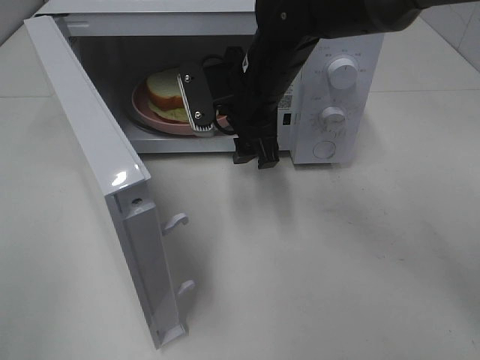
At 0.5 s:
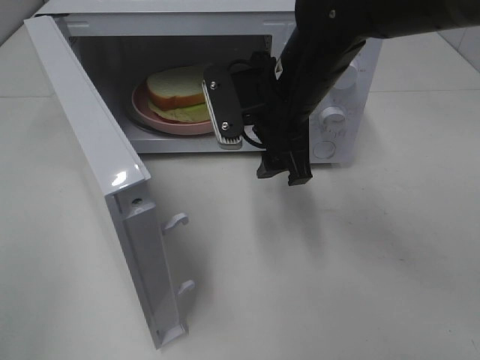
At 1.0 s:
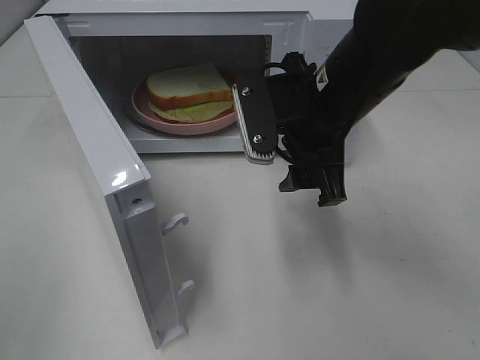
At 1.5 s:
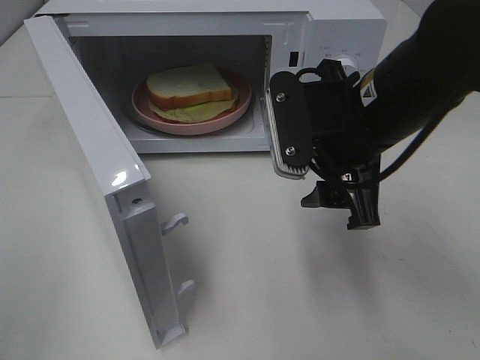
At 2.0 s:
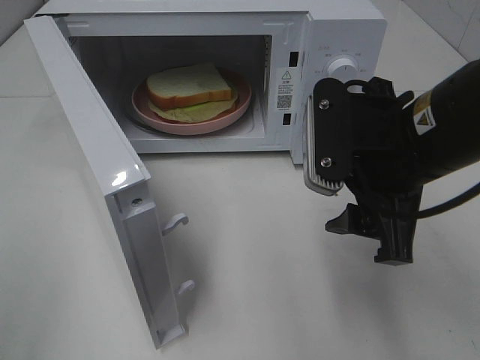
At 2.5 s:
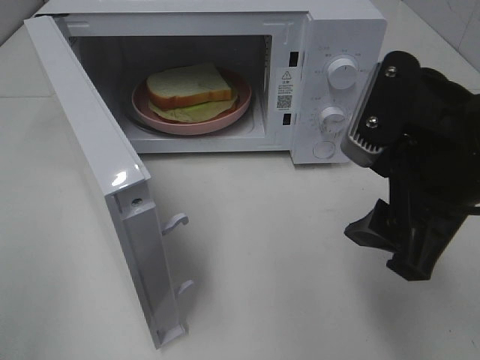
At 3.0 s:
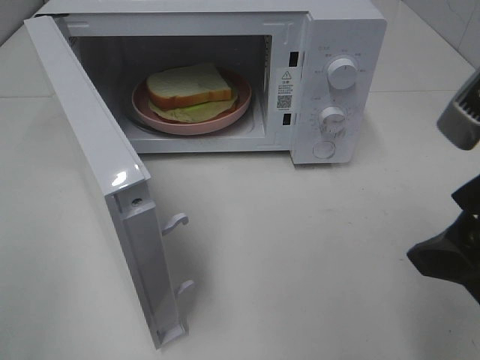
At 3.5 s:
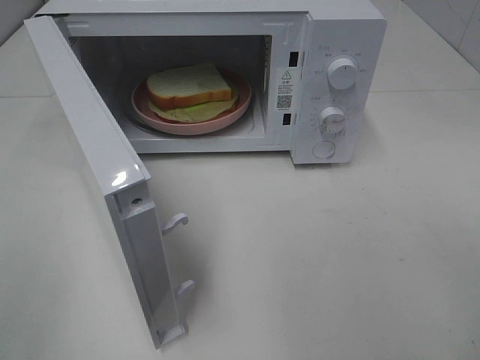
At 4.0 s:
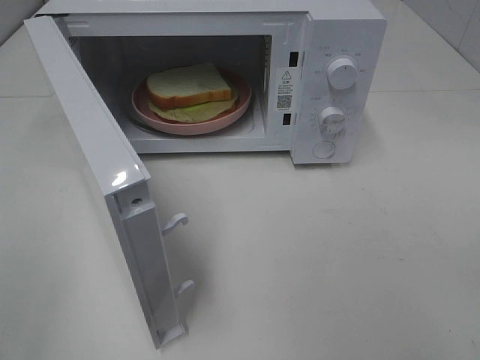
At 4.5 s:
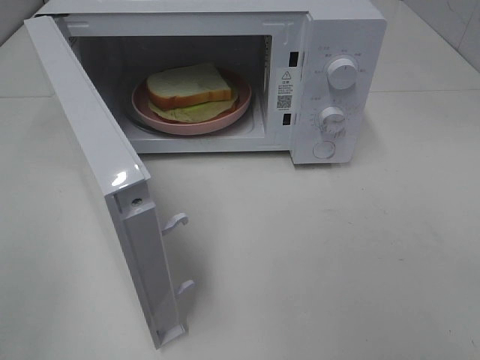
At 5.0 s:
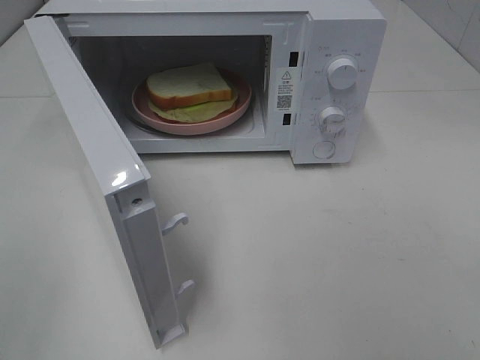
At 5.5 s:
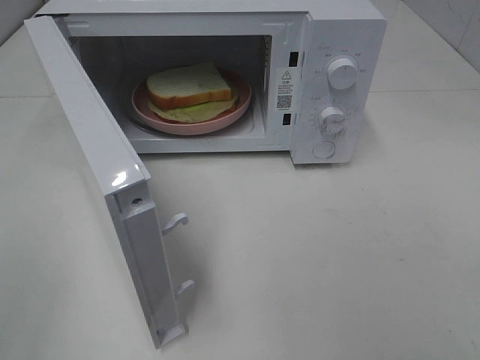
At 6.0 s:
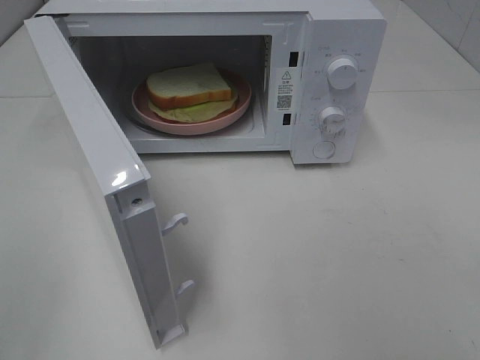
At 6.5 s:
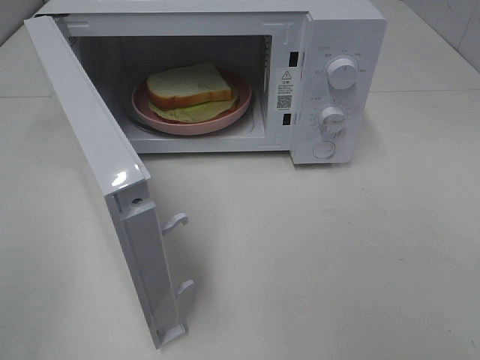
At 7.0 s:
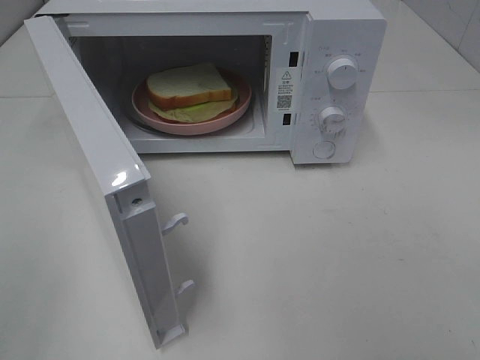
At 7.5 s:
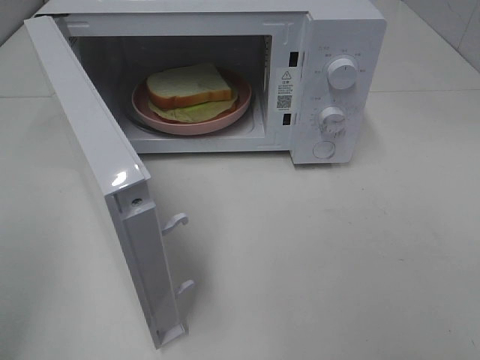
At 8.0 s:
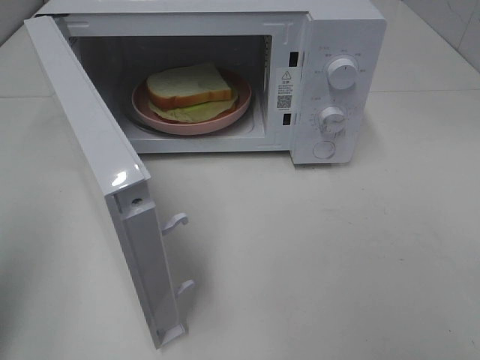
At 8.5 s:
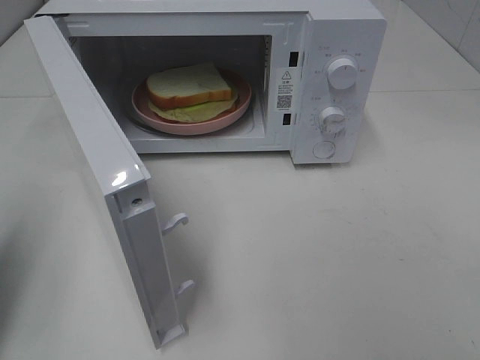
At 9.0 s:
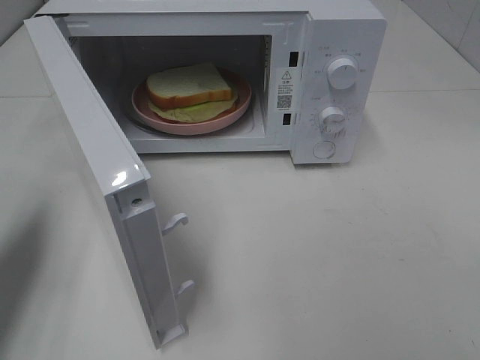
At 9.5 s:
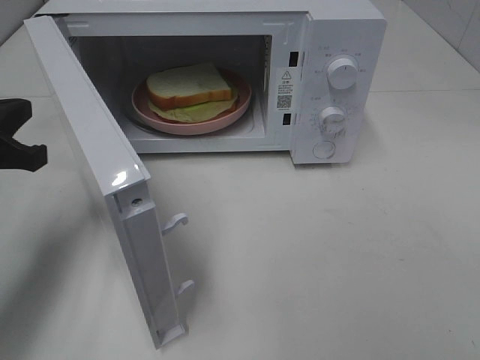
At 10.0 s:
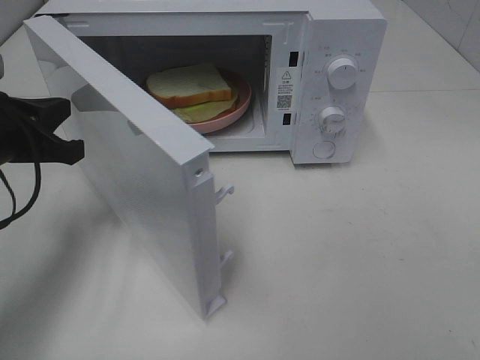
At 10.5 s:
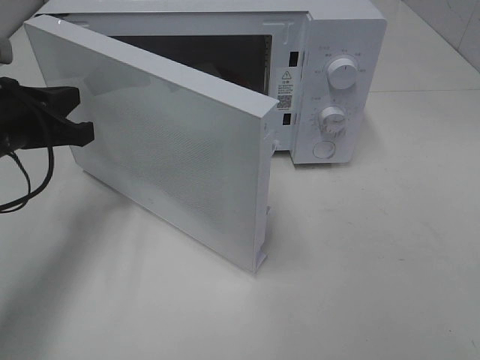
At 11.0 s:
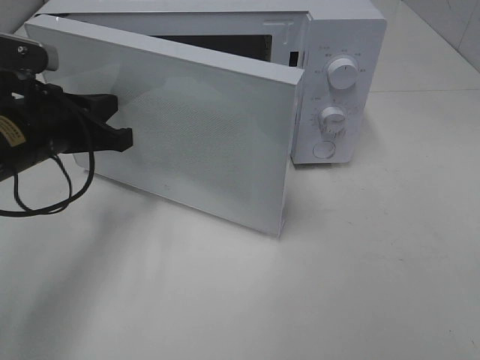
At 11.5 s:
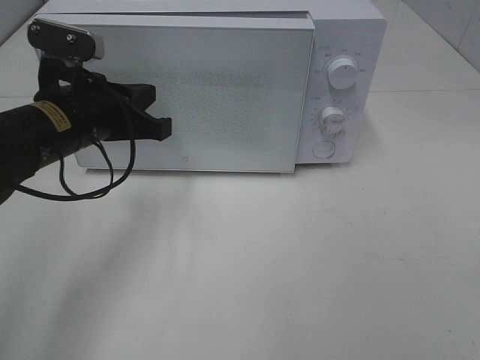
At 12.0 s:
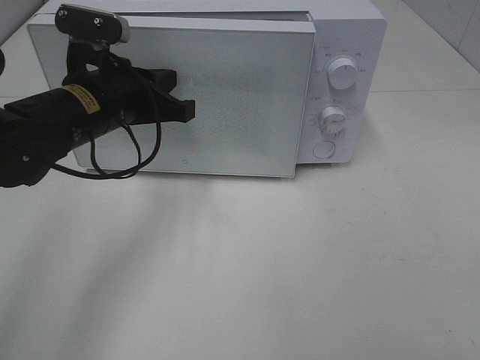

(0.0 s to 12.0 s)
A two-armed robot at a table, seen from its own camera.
Task of the whole recording: Heat Sandwich.
0.0 s - 2.0 s: The right gripper shifts about 20 cm backward and to the right.
2.0 s - 4.0 s: The right gripper shifts approximately 20 cm backward and to the right.
8.0 s - 10.0 s: The left gripper shifts approximately 20 cm forward, downward and to the right.
10.0 s - 12.0 s: The left gripper moves to the right and forward, roughly 10 cm.

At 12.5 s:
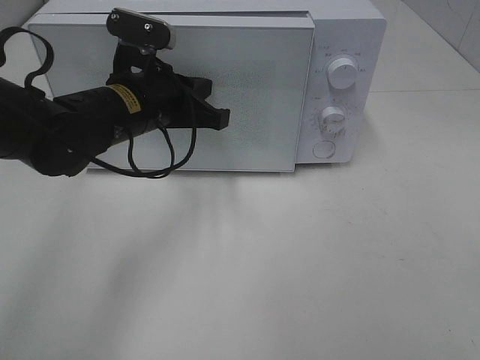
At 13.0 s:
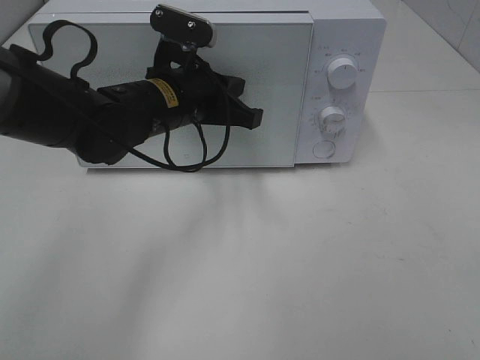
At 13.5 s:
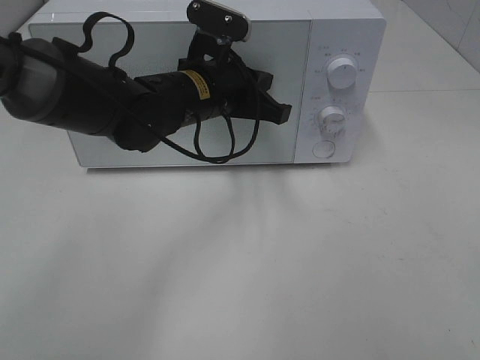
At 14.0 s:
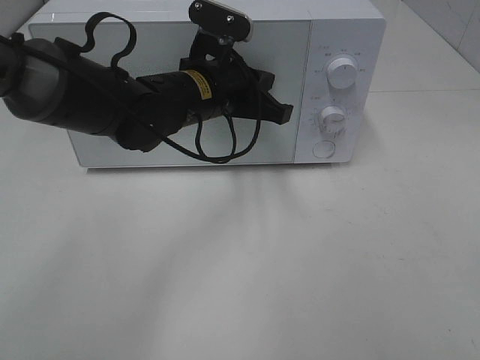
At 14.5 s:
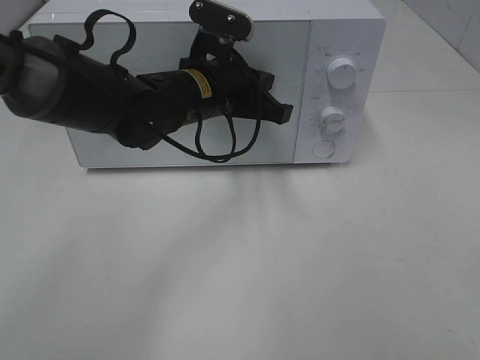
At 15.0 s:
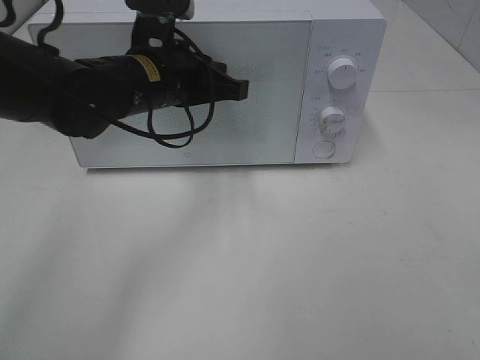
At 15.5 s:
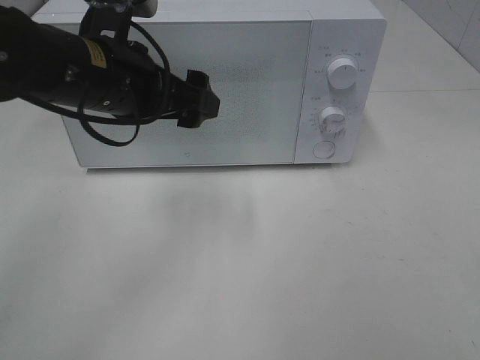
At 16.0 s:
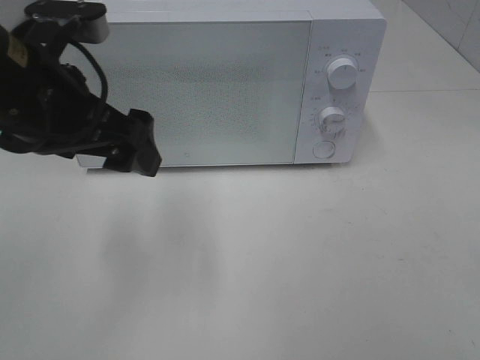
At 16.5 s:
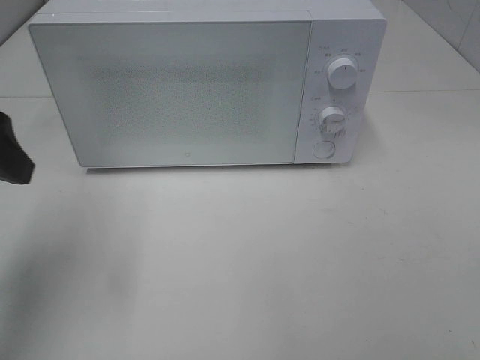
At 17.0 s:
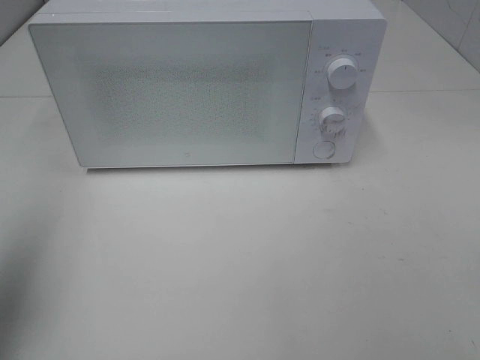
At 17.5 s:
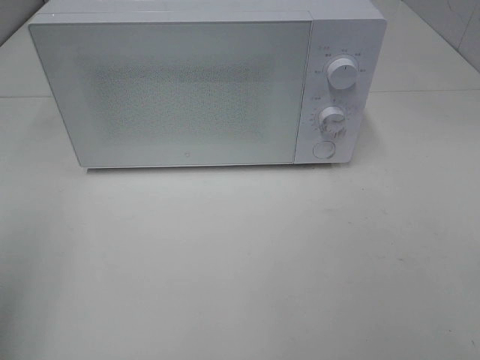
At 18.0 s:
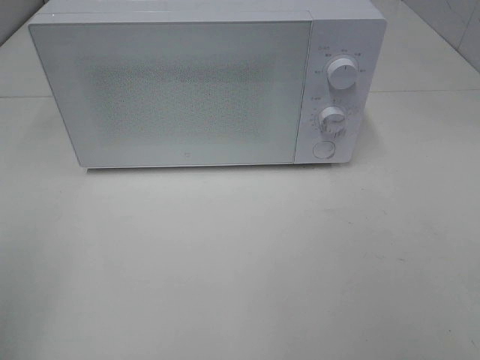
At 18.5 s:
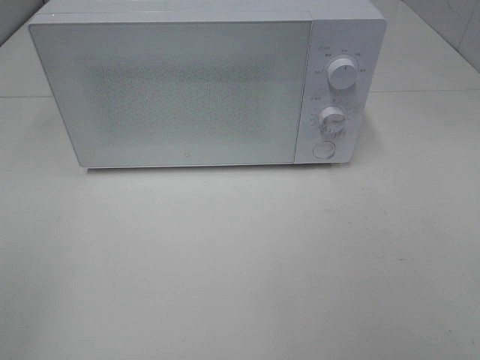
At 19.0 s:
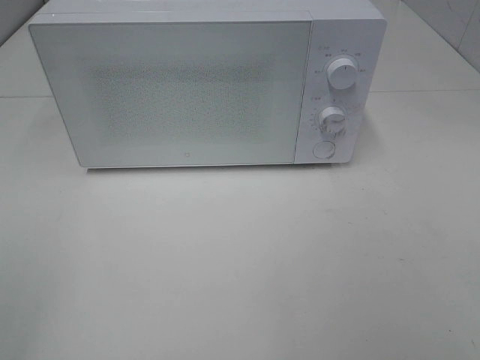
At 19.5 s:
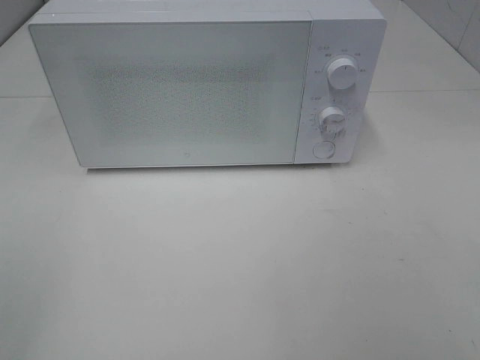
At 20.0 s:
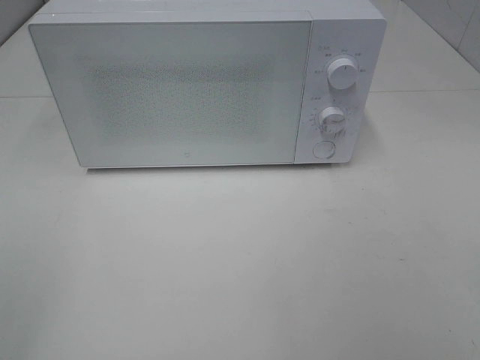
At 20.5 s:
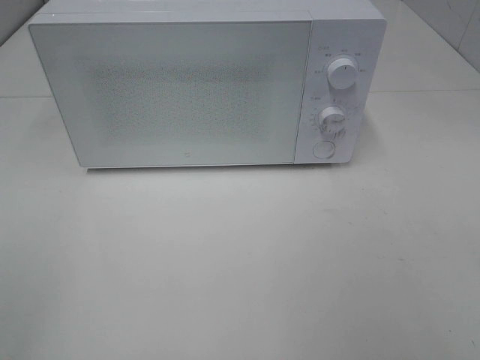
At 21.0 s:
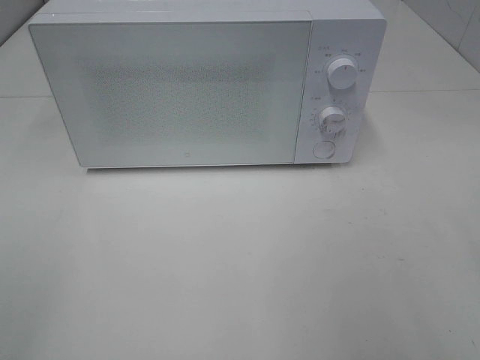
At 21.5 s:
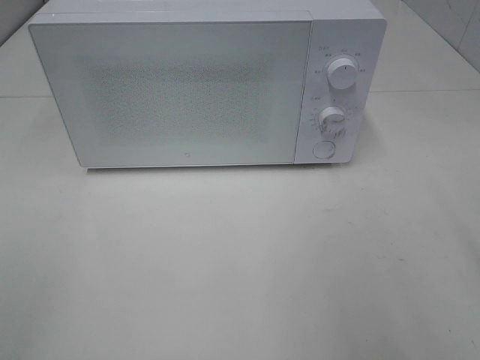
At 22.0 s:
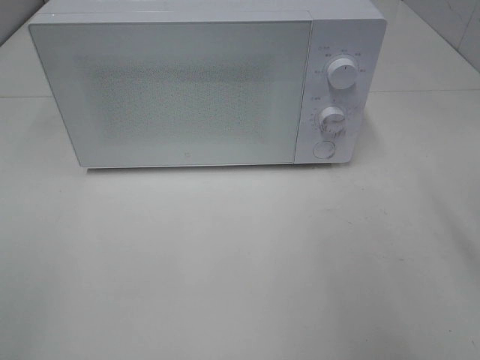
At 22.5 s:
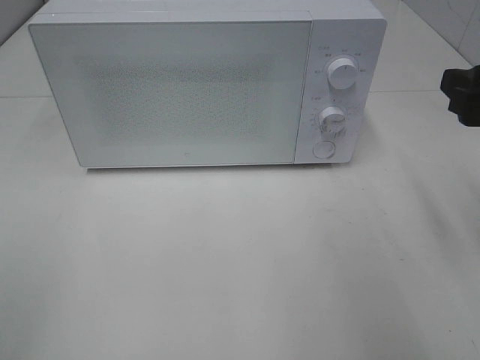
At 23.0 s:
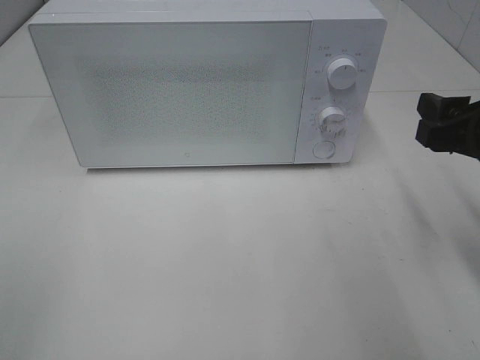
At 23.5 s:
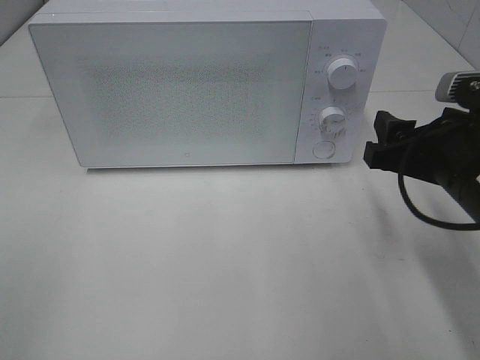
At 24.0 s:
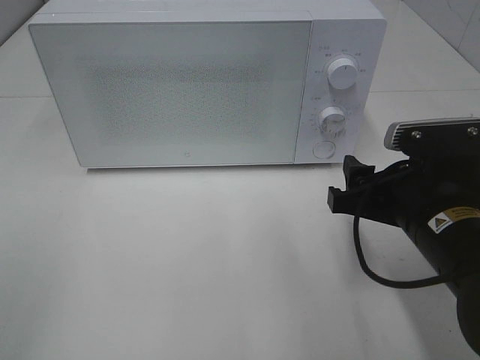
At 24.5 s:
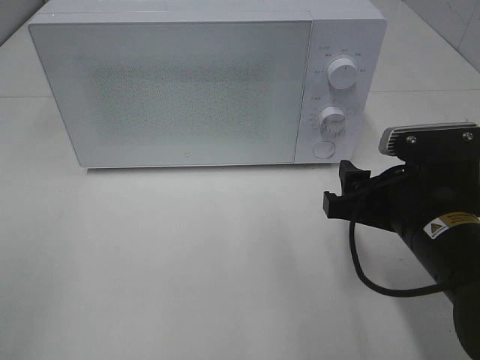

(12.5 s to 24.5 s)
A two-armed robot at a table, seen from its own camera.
Task of the whole recording: Heat Sandwich.
Step, 12.5 s - 15.0 s: Left hand: close the microwave door.
12.5 s - 14.5 s: The left gripper heads to the right, covering approximately 5 cm.
14.5 s - 16.5 s: The left gripper travels to the left, backward and upward by about 30 cm, and opens up.
16.5 s - 18.5 s: The left gripper shifts about 20 cm backward.
20.5 s - 22.5 s: The right gripper heads forward, covering roughly 20 cm.
22.5 s - 24.5 s: The right gripper travels downward and to the left by some 15 cm.

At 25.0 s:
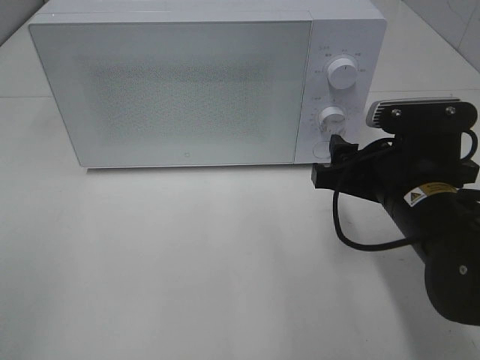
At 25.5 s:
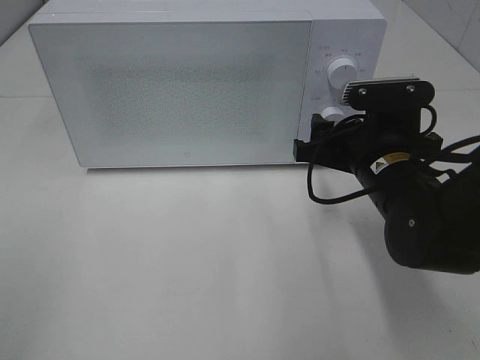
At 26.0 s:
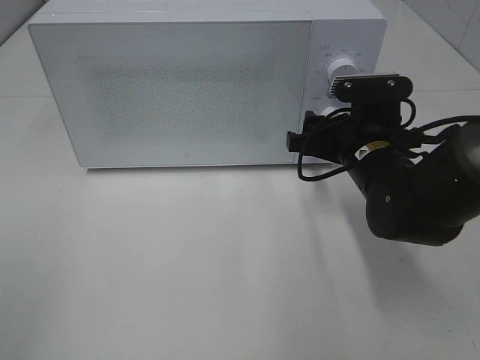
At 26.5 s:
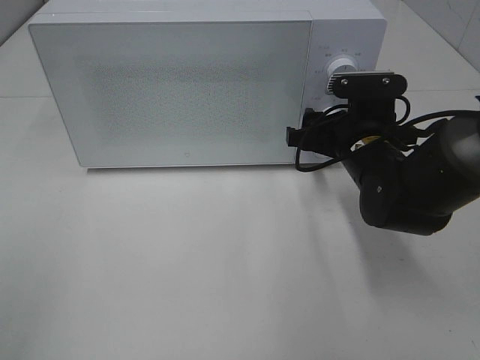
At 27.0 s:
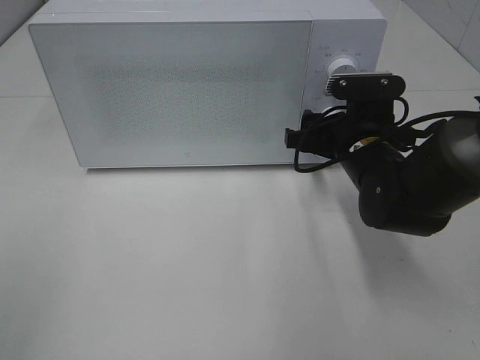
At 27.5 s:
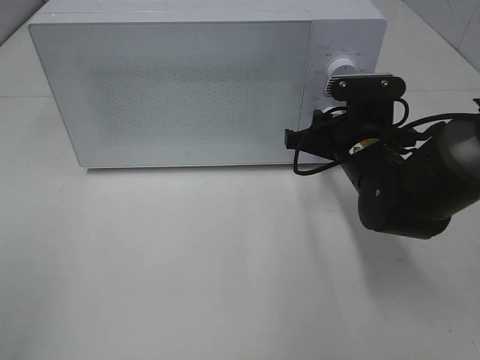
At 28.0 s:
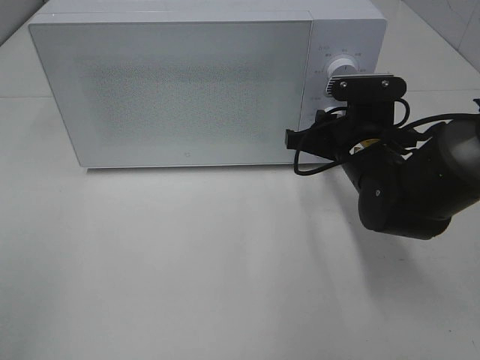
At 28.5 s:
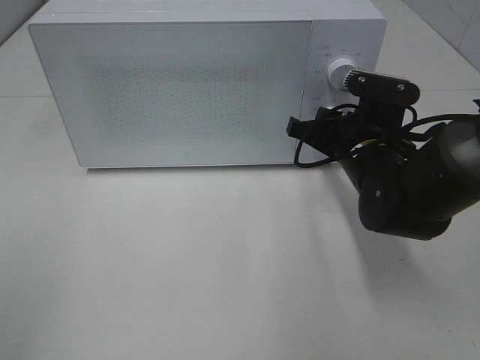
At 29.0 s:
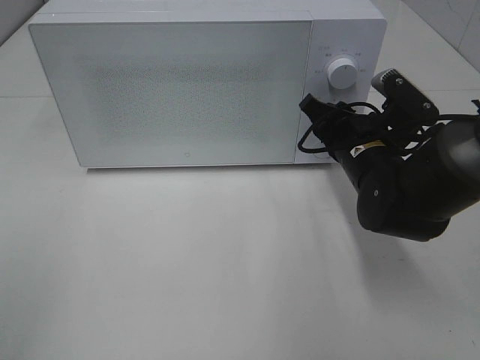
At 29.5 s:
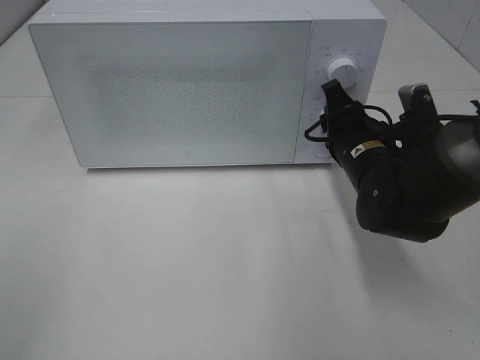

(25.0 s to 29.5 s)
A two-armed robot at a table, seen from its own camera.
Task of the whole recording: Heat Sandwich.
25.0 s - 27.0 s: The right gripper shifts about 10 cm forward.
27.0 s - 29.5 s: The right gripper closes its fingers.
